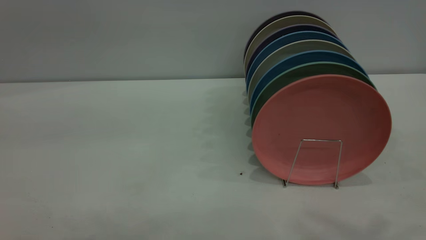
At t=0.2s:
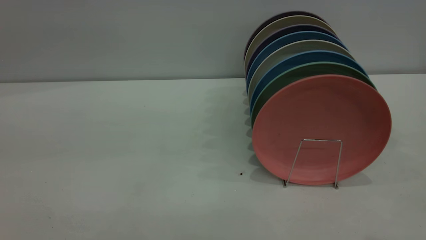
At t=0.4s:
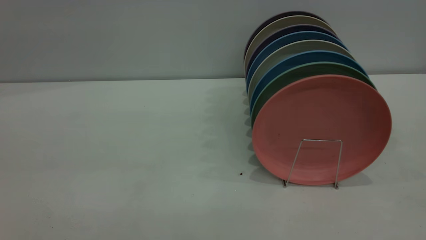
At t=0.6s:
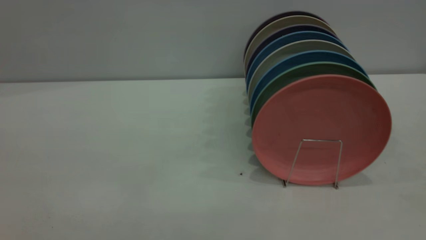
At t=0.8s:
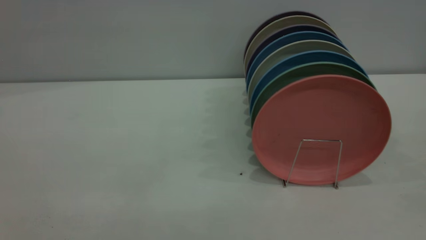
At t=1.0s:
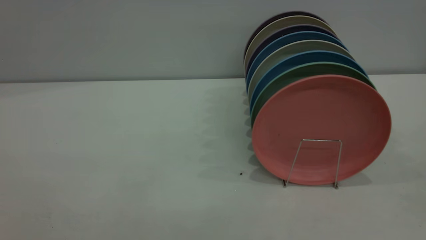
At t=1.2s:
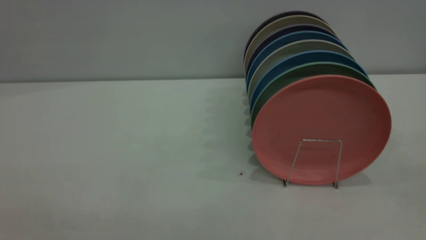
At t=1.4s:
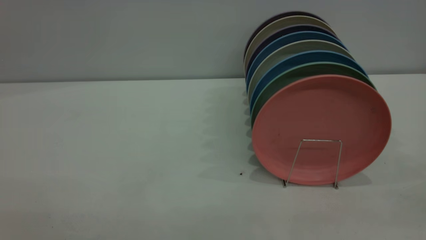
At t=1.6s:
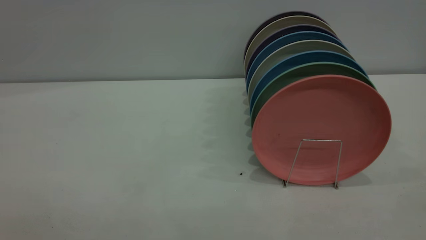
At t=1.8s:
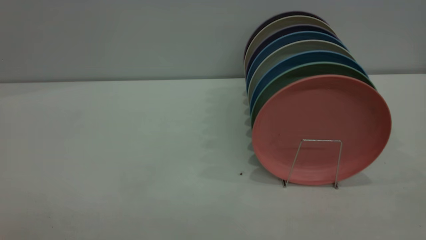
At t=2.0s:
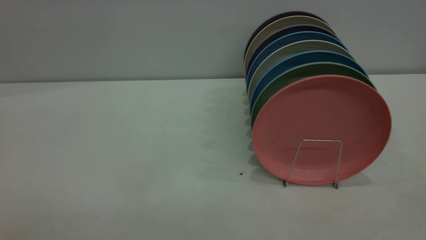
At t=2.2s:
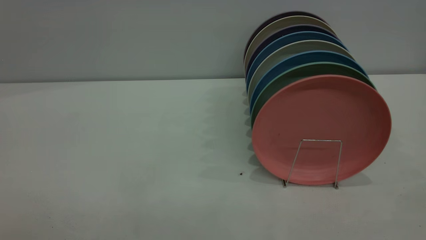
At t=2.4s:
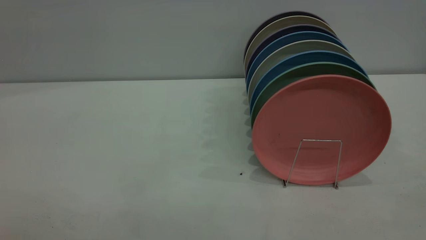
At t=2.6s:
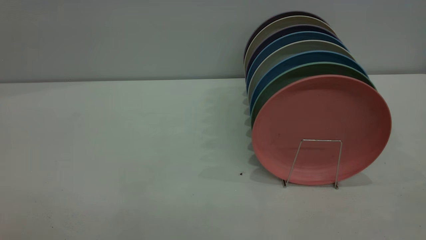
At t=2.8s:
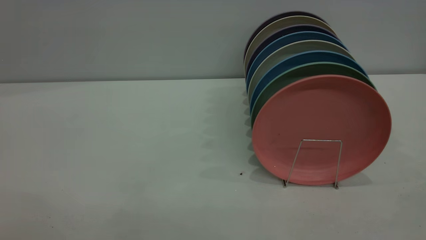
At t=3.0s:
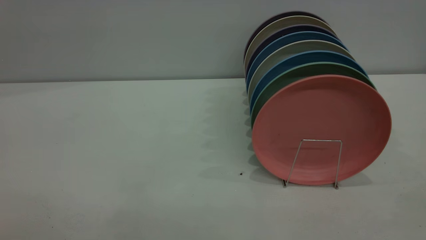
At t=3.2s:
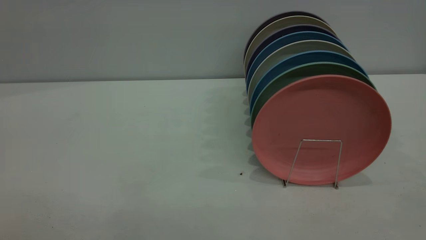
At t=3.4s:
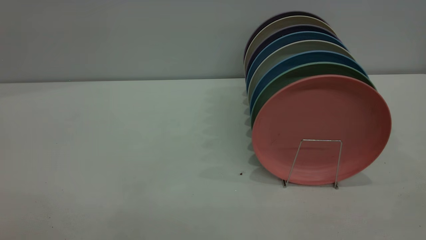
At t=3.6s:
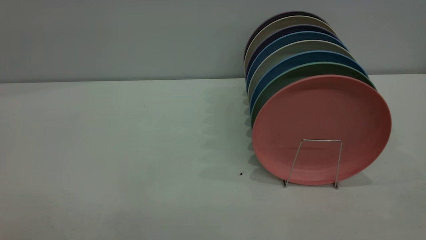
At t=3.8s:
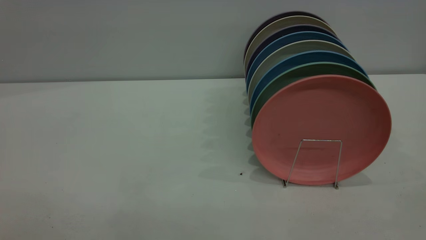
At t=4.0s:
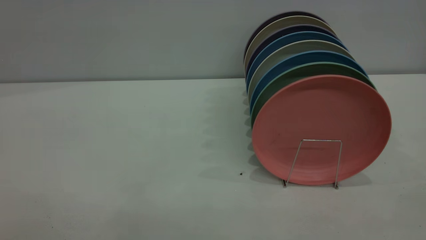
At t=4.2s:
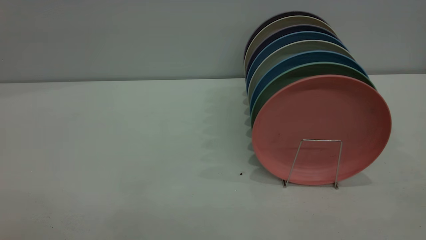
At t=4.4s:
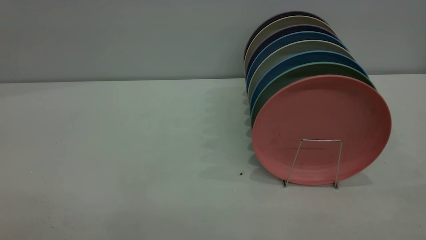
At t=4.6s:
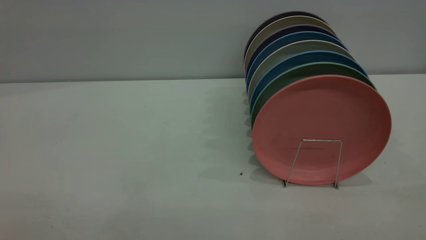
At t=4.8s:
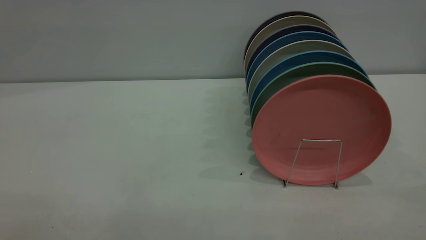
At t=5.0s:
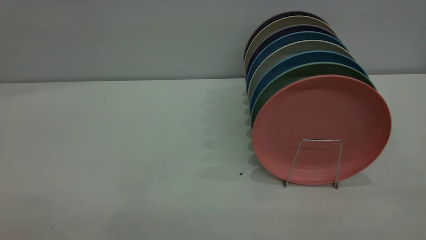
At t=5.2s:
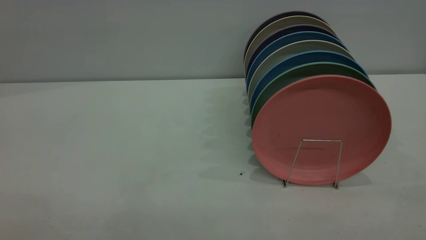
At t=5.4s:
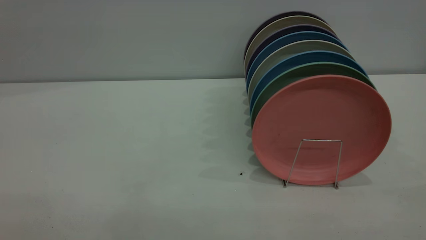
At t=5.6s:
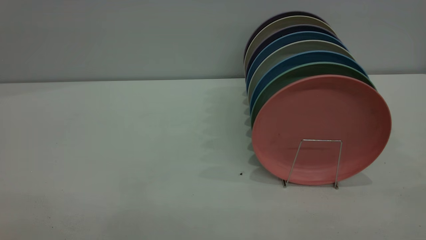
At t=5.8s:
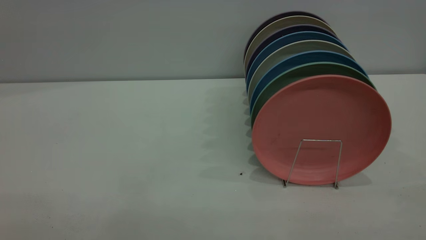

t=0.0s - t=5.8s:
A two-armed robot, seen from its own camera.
Task of the whole recording: put the plate on the plate rack.
t=4.4s - t=5.8s: Both grippers stay put.
